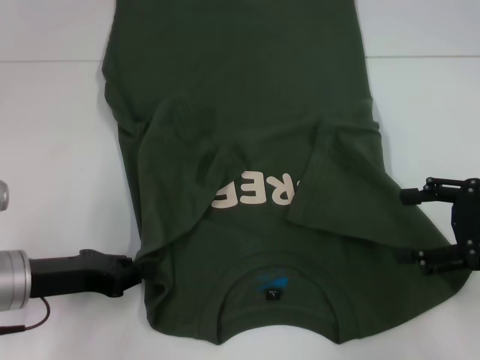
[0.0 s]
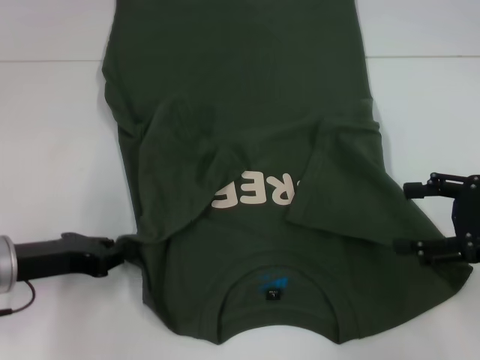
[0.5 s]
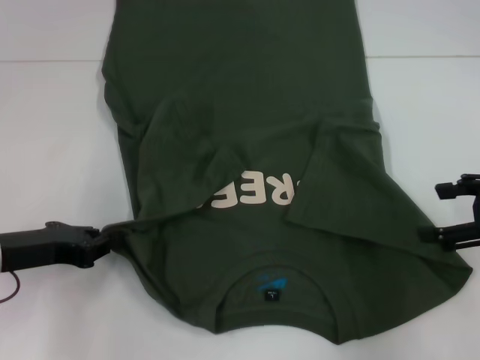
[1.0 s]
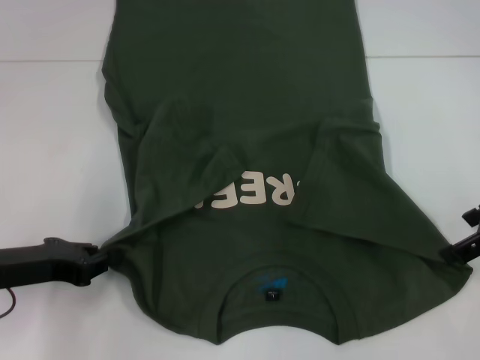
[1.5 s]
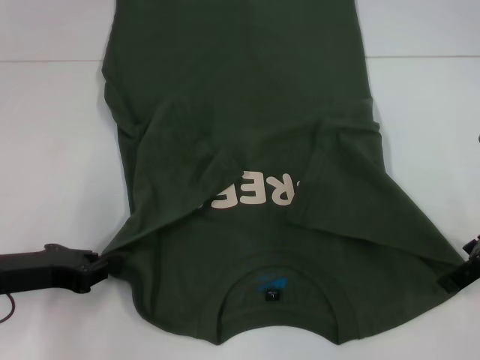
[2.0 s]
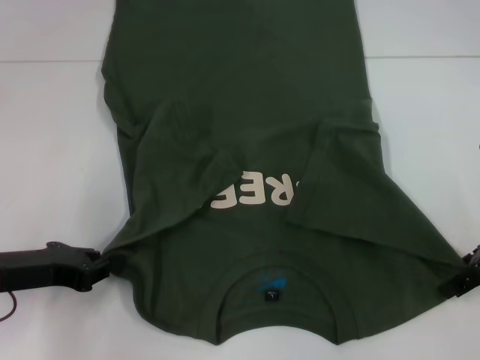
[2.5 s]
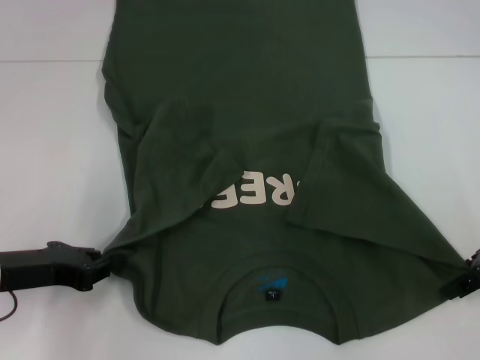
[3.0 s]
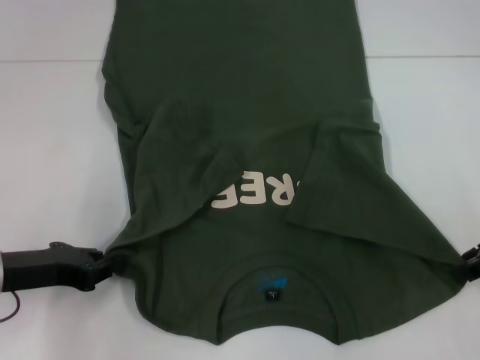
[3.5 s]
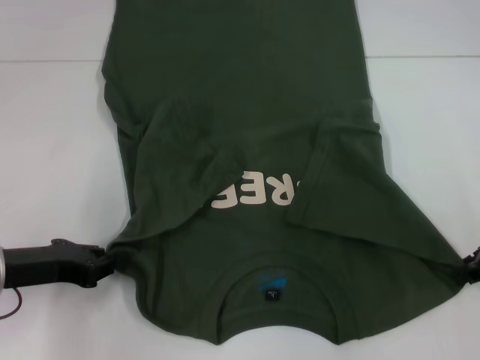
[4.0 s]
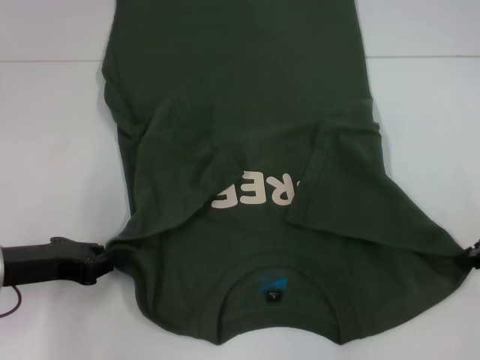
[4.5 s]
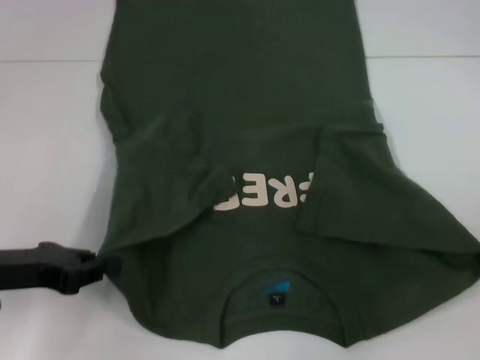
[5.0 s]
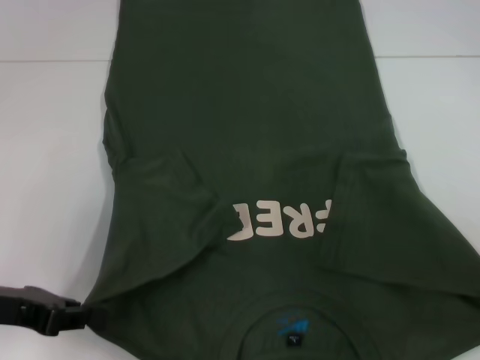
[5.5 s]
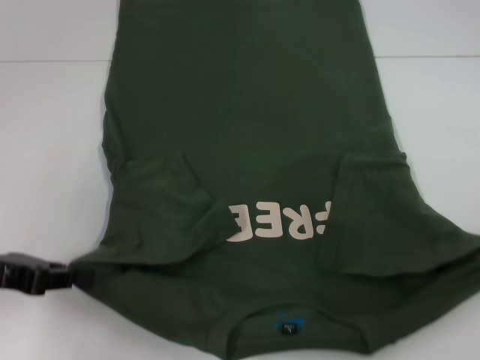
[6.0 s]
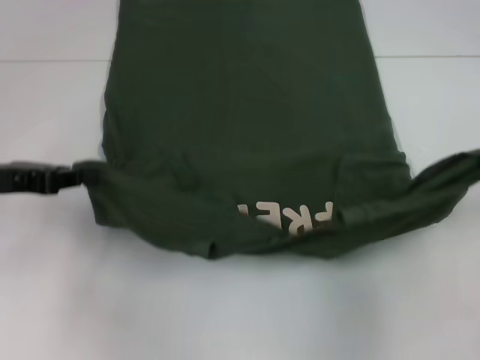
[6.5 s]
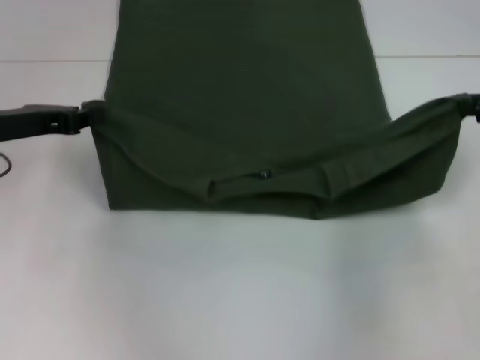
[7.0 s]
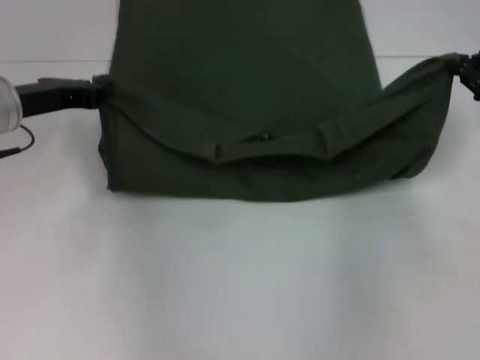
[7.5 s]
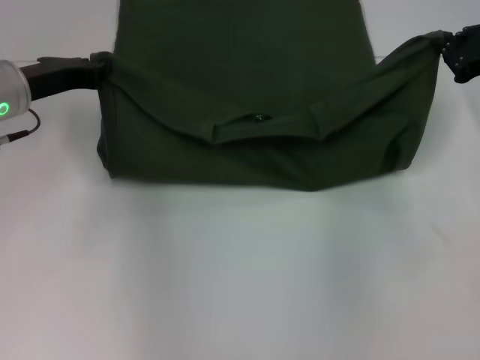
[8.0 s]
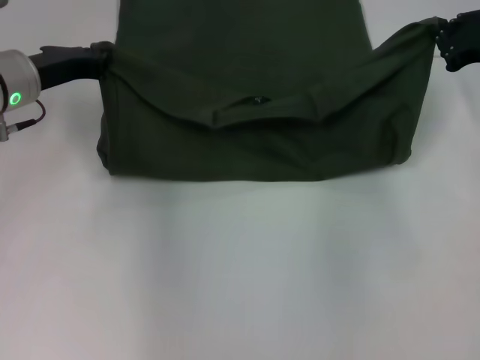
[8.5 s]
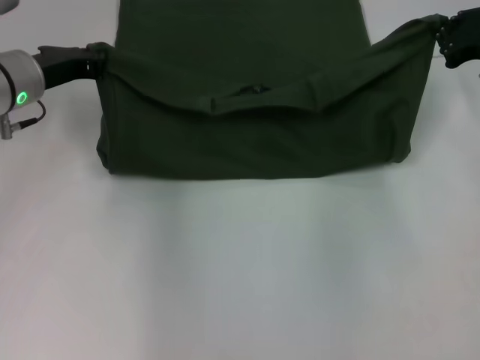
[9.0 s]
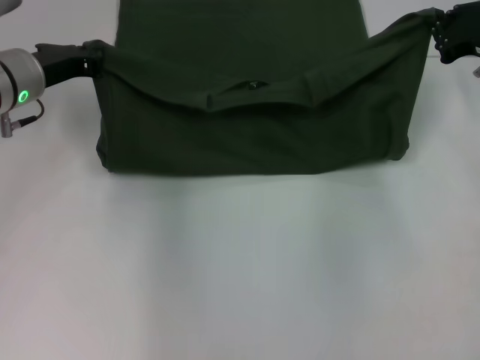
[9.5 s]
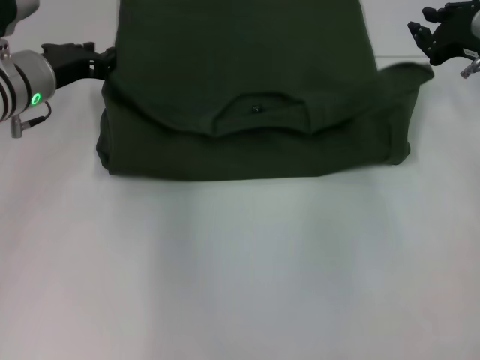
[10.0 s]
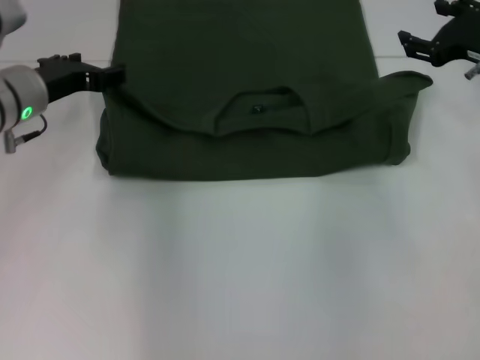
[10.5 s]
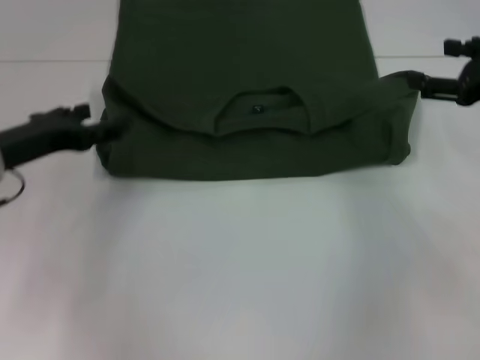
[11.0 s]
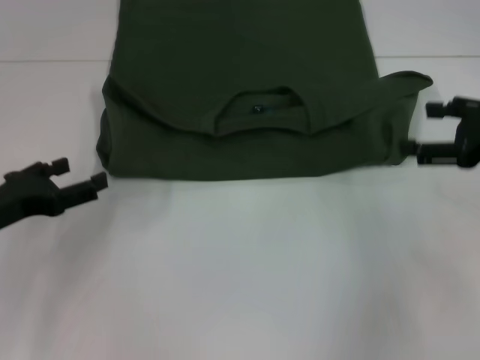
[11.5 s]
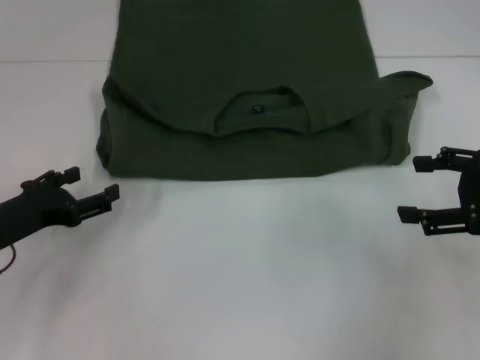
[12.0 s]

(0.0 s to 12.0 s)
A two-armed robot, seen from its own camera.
Step, 1.5 s - 4.5 s: Grab the bottom right corner with your right hand.
Step, 5.0 s - 10.5 s: Fold the clothes with your left hand.
Step, 5.0 s - 10.5 s: Fold the clothes with your right hand.
0.0 s - 2.0 s: The right gripper ends up some 5 cm from where it was.
4.0 s - 6.0 s: Both grippers move upward, about 5 cm.
6.0 s - 8.0 s: The right gripper goes some 10 cm forward. Meanwhile the left gripper shifts some 15 cm forward and to the right.
8.0 s - 10.0 s: The grippers move only a little.
10.0 s - 12.0 s: The left gripper goes approximately 20 cm backward, downward and to the left, and opens up. The right gripper is displaced backward by approximately 15 cm, and opens.

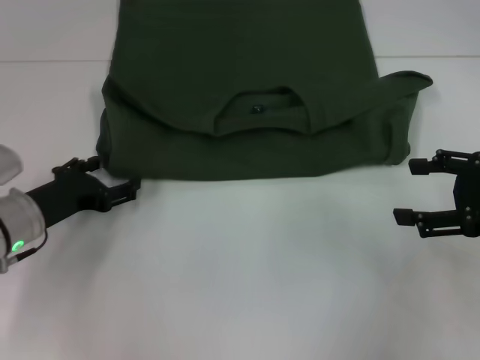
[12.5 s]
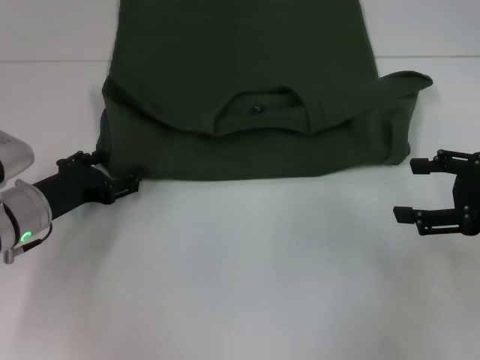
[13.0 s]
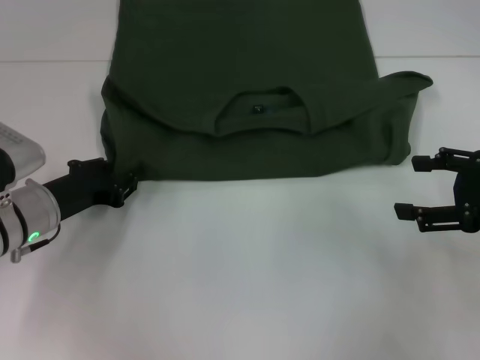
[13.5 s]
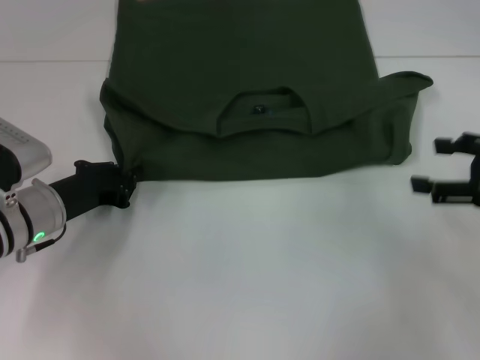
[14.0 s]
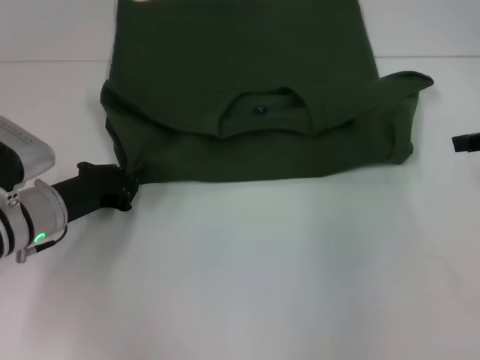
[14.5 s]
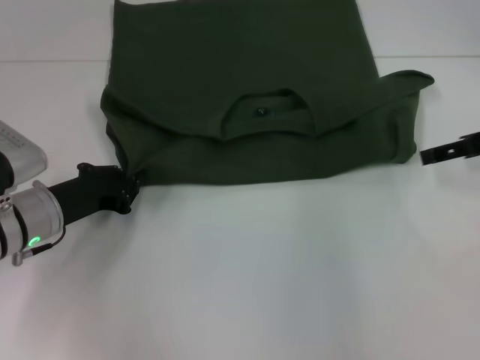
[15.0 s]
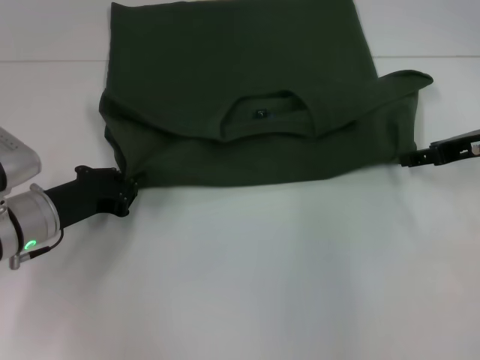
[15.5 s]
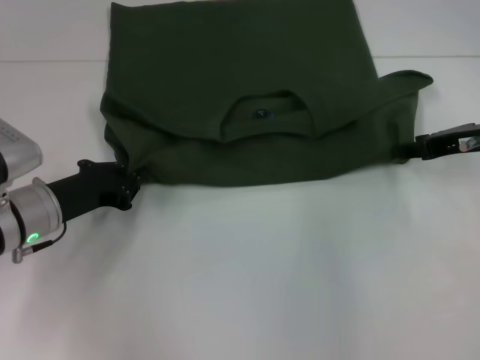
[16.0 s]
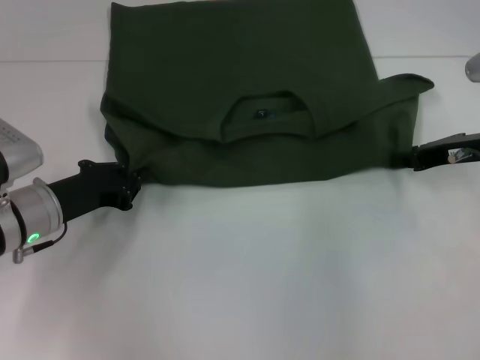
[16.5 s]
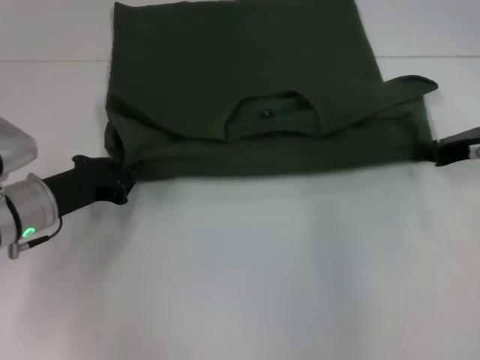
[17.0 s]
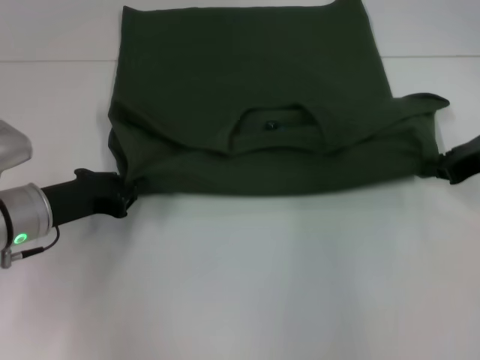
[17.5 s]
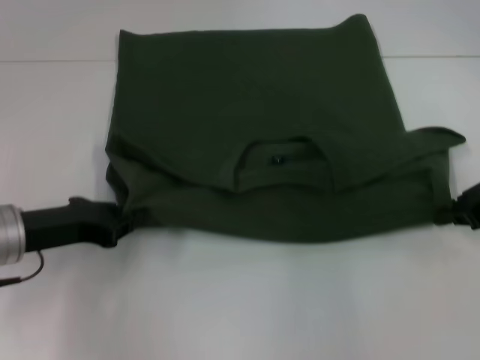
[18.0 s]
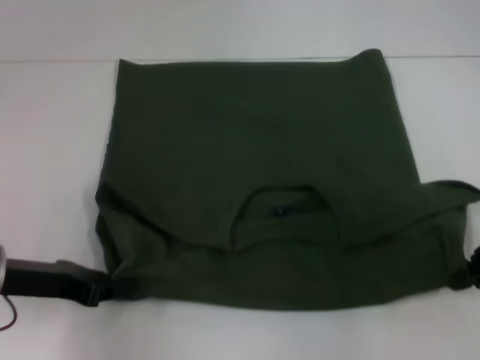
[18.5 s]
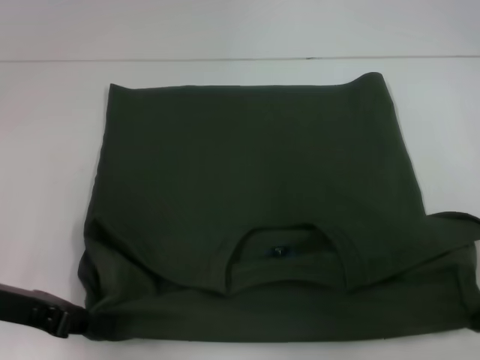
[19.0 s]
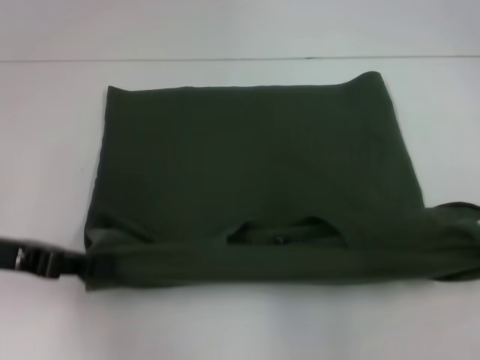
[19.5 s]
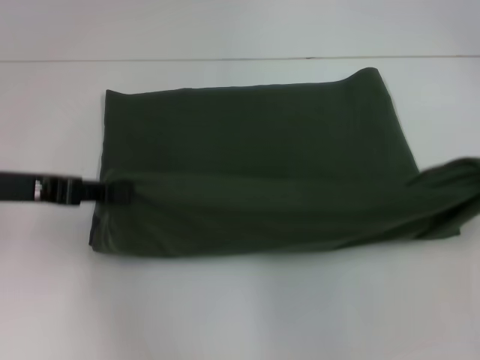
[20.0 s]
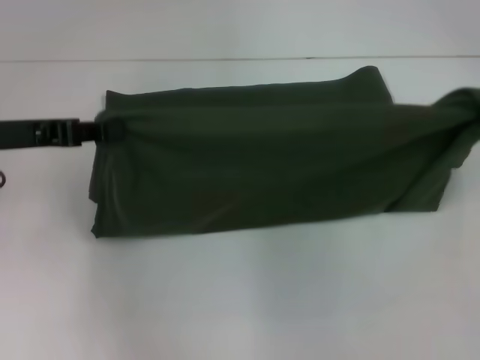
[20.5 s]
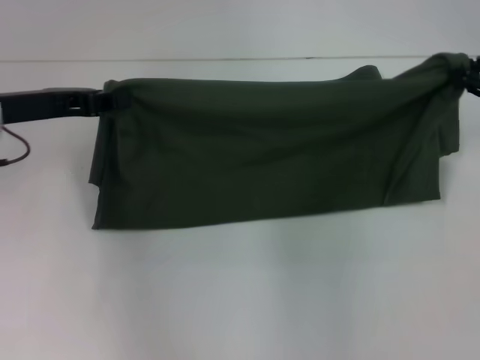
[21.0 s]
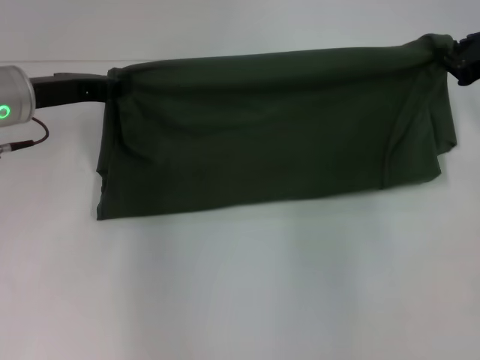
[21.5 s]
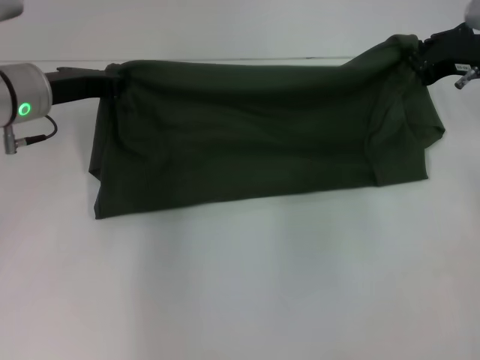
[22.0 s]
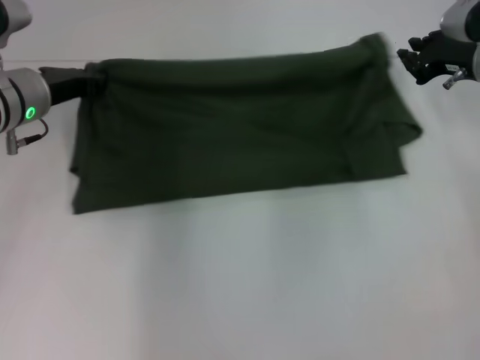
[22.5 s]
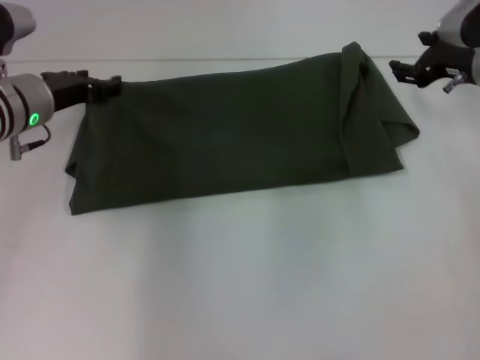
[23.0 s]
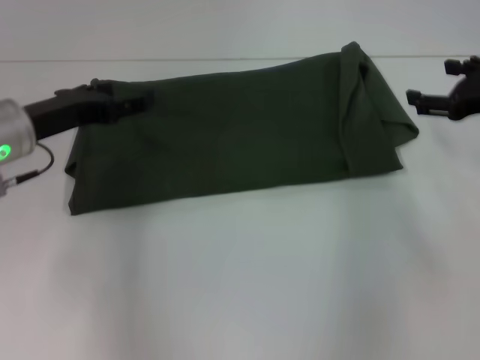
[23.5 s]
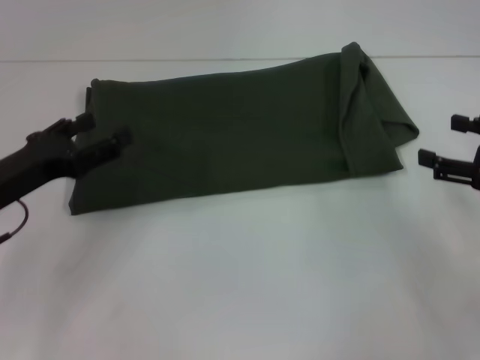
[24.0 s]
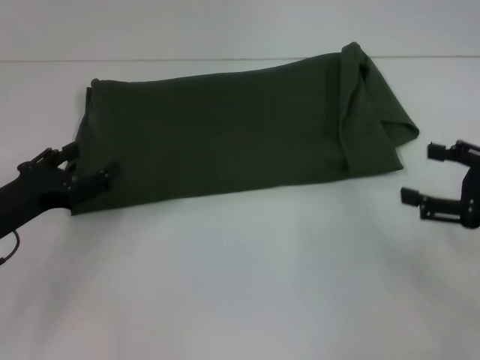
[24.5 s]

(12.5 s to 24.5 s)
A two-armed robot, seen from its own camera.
Step, 12.5 s - 18.5 s: Pull the clothes with your left hand.
Step, 12.5 s - 18.5 s: Pull the clothes with your right hand.
Step, 19.0 s - 22.5 s: Fold the clothes with your right hand.
12.5 s - 14.5 s: The right gripper moves forward, some 5 cm. The left gripper closes.
14.5 s - 16.5 s: The right gripper moves downward and to the left, some 10 cm, and closes.
16.5 s - 18.5 s: The left gripper is displaced backward by some 5 cm. The right gripper moves backward and upward, some 10 cm.
18.5 s - 20.5 s: The right gripper goes approximately 10 cm upward, while the left gripper travels upward and forward by about 10 cm.
20.5 s - 22.5 s: The right gripper heads forward and downward, covering about 15 cm; the left gripper is displaced forward and downward by some 10 cm.
22.5 s - 24.5 s: The right gripper goes approximately 15 cm backward, and opens up. Meanwhile the left gripper heads backward and downward, covering some 15 cm, and opens.

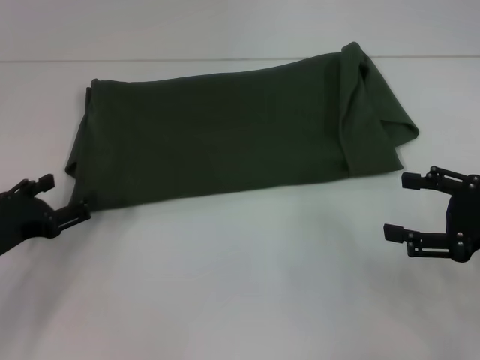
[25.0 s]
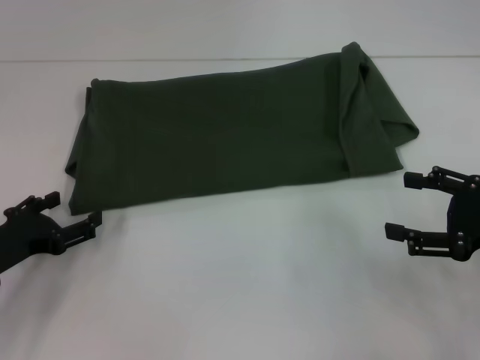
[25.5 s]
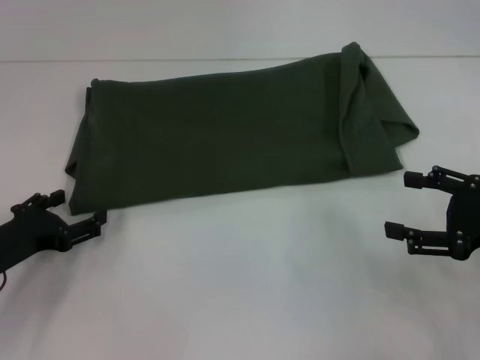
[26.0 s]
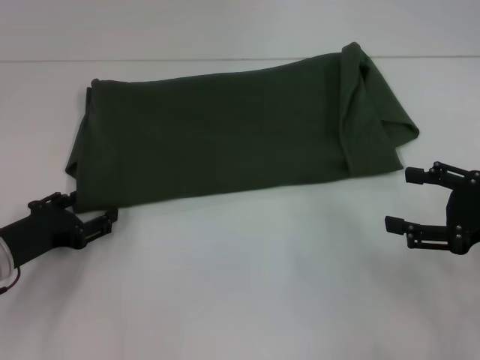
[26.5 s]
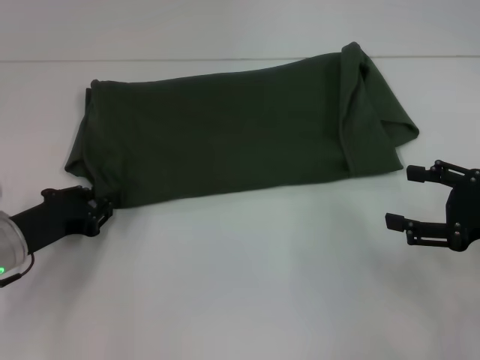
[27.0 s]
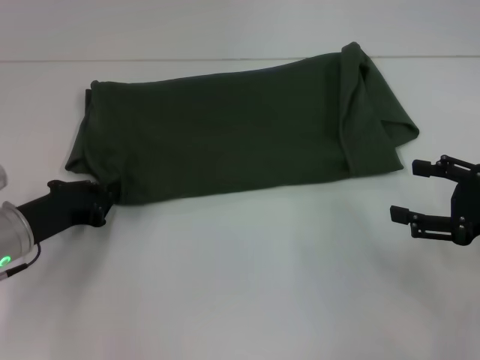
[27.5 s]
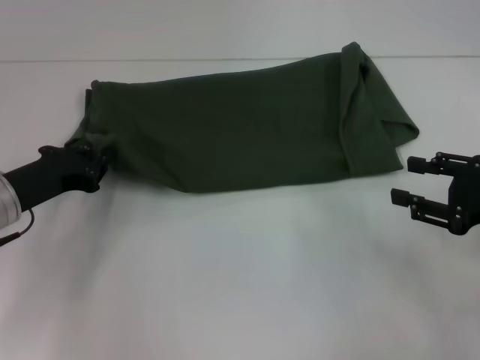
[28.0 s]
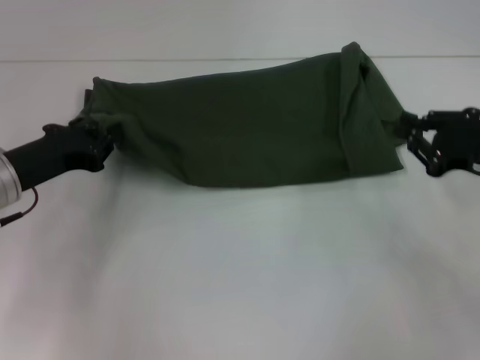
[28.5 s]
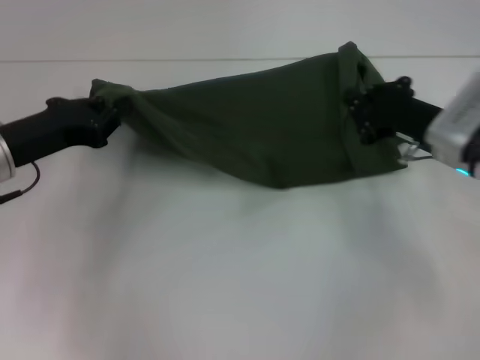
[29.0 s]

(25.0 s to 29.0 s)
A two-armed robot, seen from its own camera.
25.0 s - 27.0 s: The left gripper closes.
27.0 s - 29.0 s: The left gripper goes roughly 10 cm upward, and closes, while the right gripper is displaced forward and to the left by some 15 cm, and closes its fingers.
